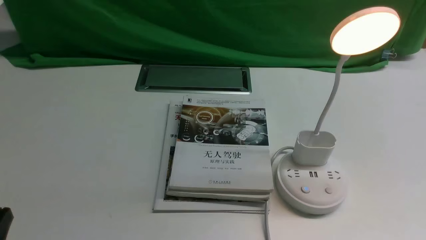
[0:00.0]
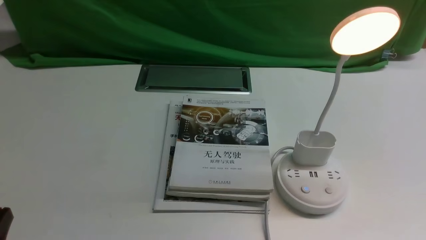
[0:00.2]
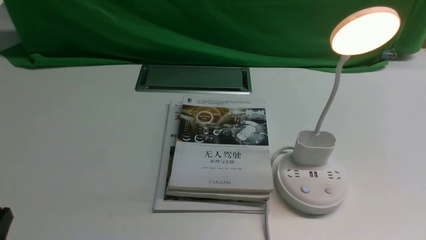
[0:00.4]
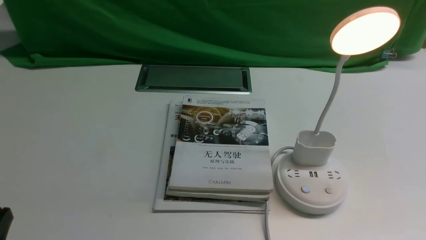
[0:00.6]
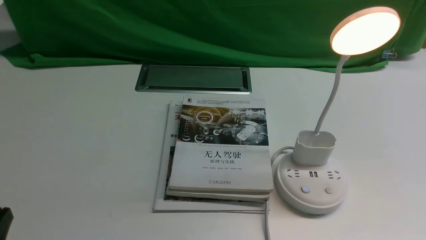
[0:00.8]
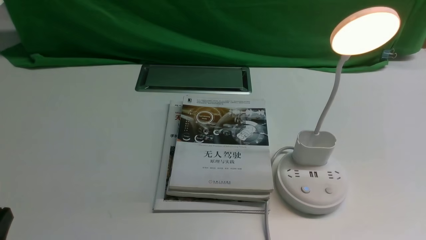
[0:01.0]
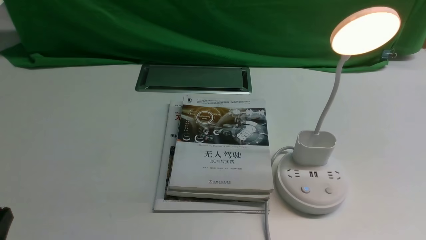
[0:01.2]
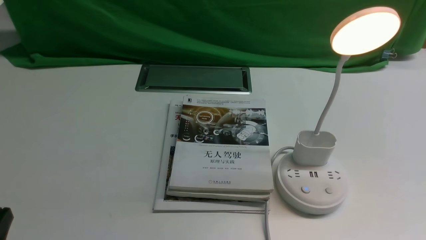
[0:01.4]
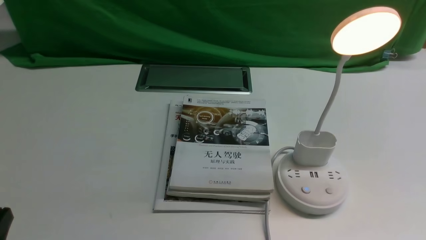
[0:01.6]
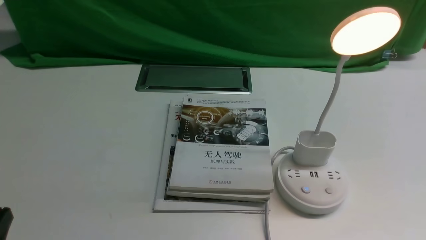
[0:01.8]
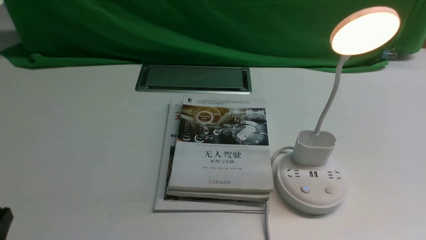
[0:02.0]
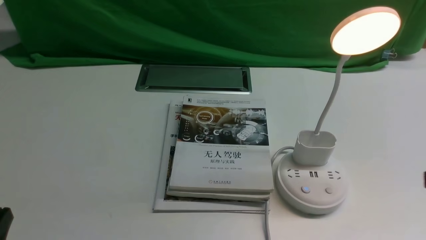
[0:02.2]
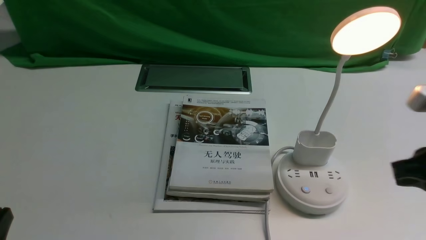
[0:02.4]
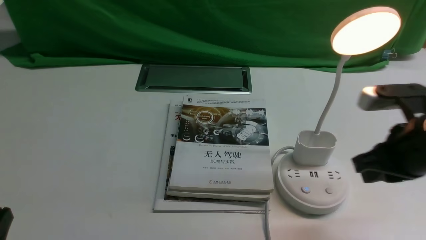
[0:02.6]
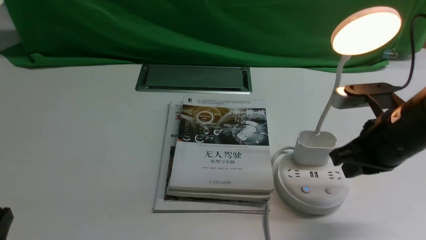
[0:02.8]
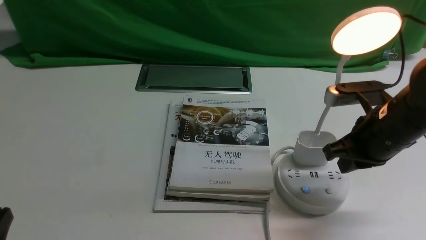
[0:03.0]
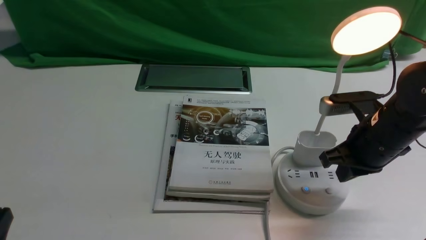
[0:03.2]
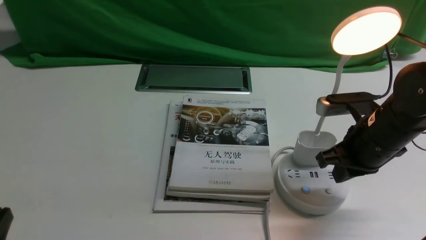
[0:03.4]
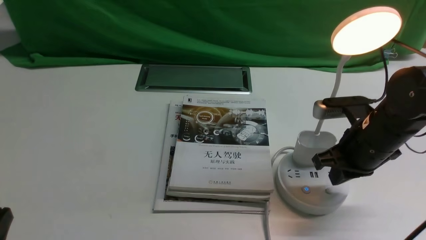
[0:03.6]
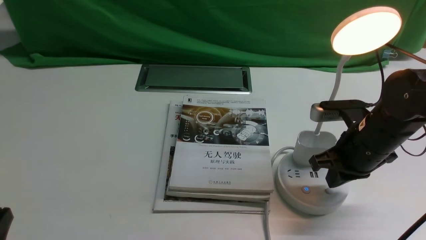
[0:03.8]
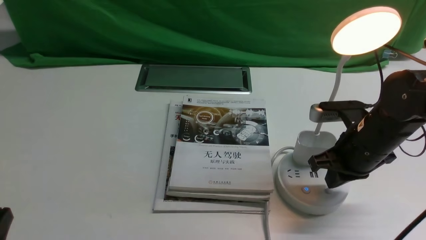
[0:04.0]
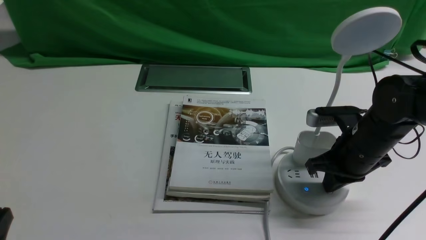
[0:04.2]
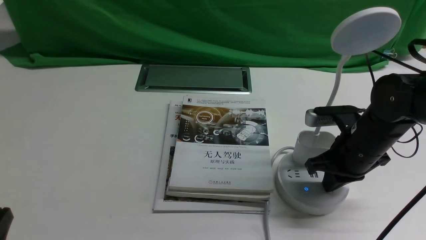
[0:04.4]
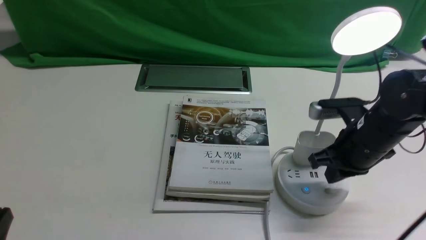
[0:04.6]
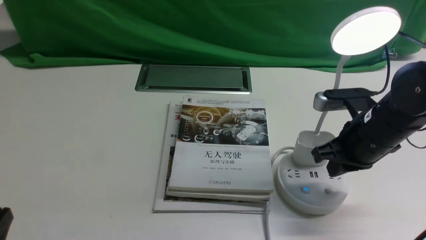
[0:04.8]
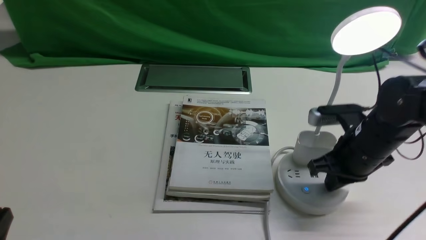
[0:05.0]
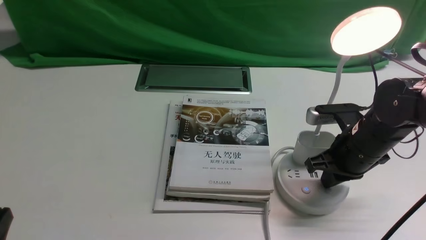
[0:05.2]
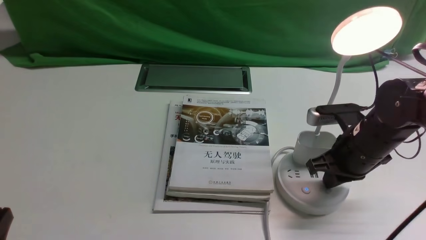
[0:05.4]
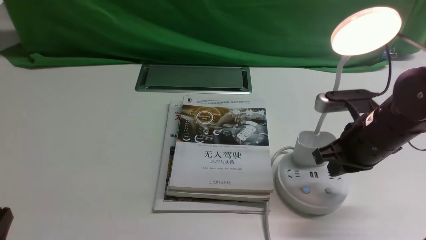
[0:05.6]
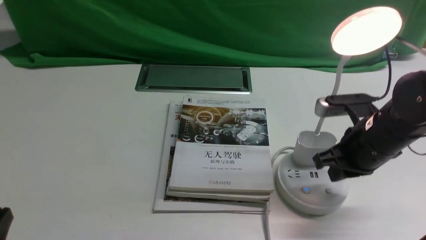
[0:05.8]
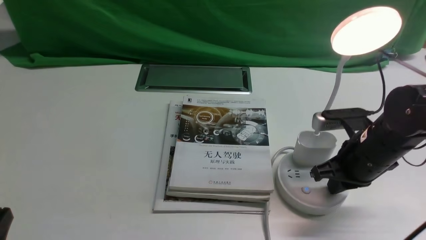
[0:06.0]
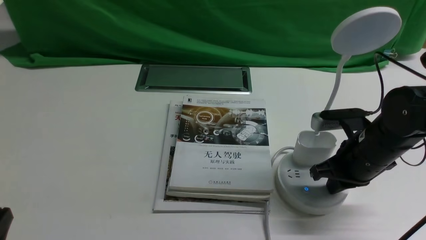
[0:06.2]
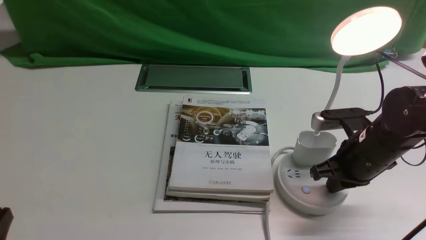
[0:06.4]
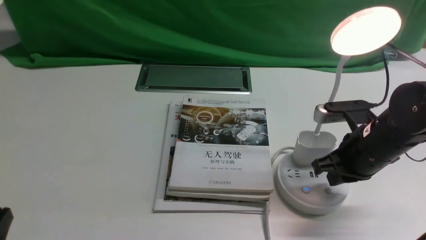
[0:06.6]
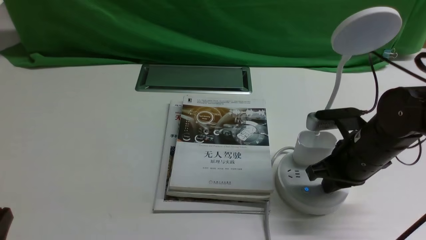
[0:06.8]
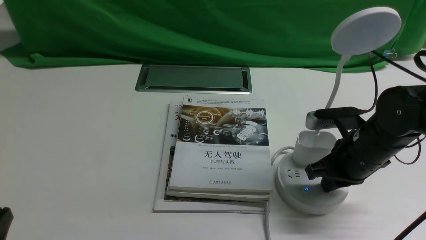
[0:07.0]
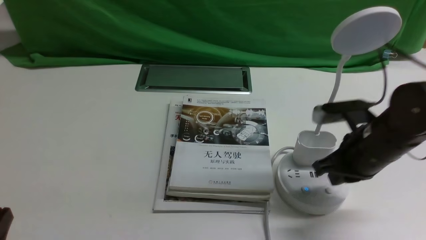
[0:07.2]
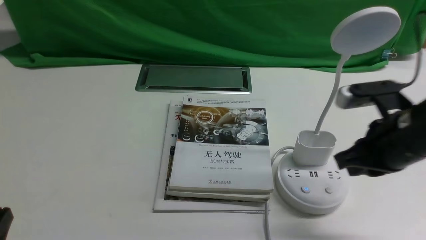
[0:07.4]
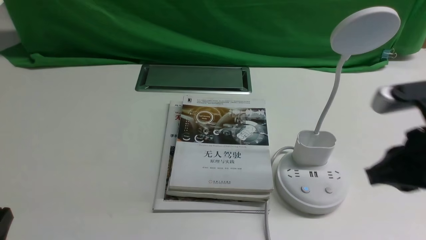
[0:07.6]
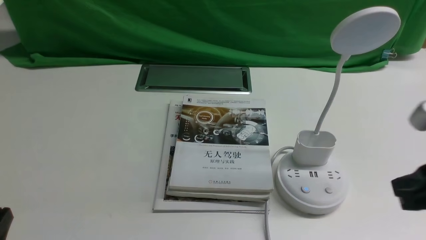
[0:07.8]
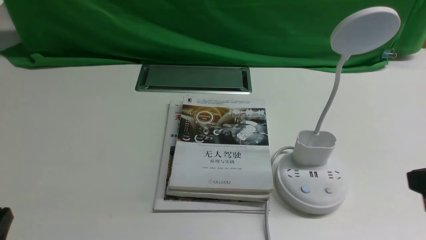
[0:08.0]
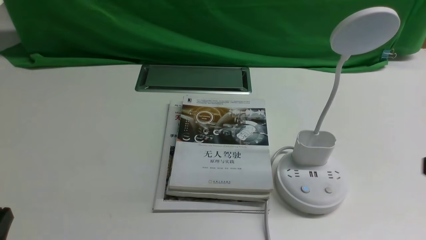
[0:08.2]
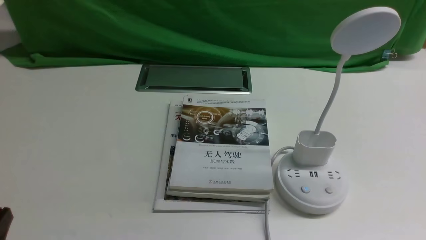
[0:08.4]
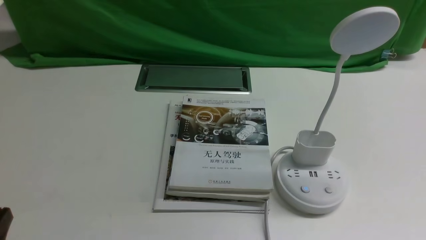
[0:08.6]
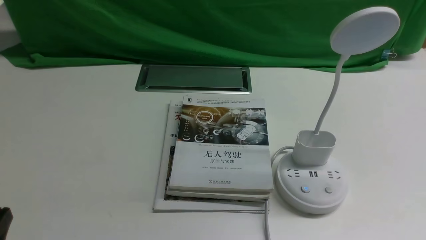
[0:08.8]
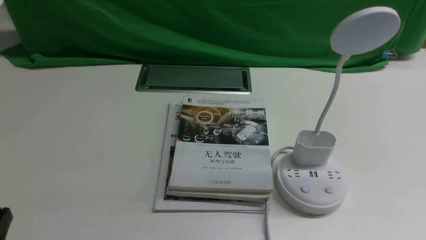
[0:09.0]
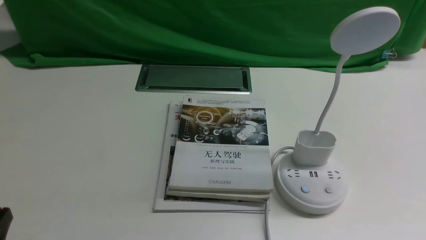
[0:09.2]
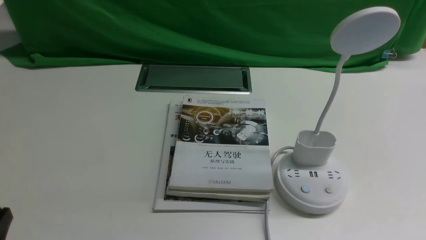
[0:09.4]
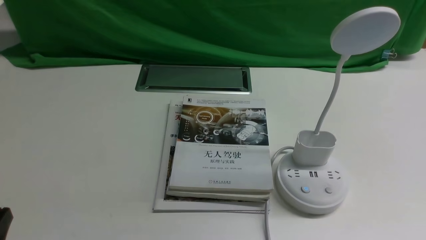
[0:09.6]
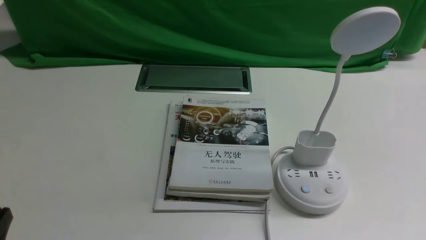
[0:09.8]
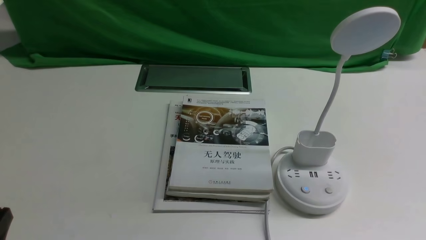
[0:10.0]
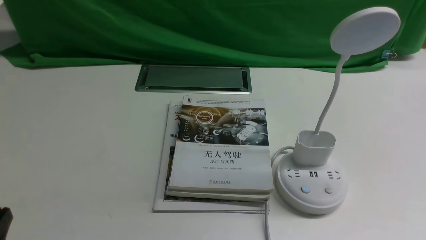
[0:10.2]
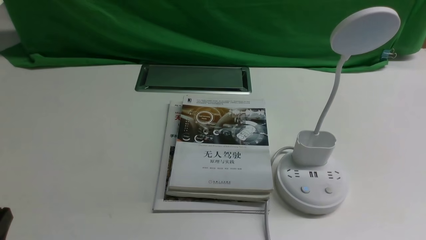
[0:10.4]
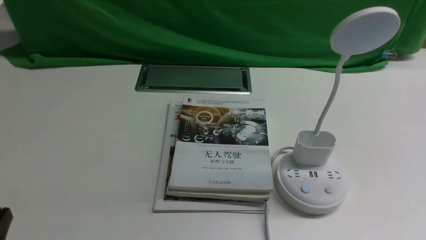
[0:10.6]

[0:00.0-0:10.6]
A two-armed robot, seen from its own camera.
Task of the whole recording: turn off the desk lamp on the white desktop by hand.
Step, 0:00.0 to 0:07.2: use the right arm to press the button switch on the lamp holder.
0:01.6 to 0:03.0: The right gripper is displaced forward and to the left by approximately 25 cm, and closes up.
0:03.0 to 0:04.6: The right gripper changes place by some 5 cm, and opens its fingers.
0:04.6 to 0:06.0: The grippers move only a little.
0:06.0 to 0:07.6: The right gripper goes roughly 10 cm upward and backward.
0:07.6 to 0:09.0: The right gripper moves backward, downward and to the right, some 20 cm.

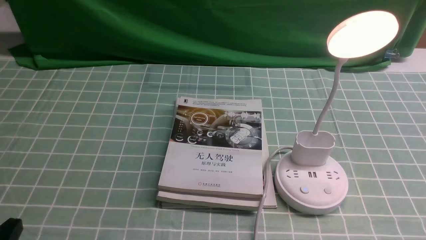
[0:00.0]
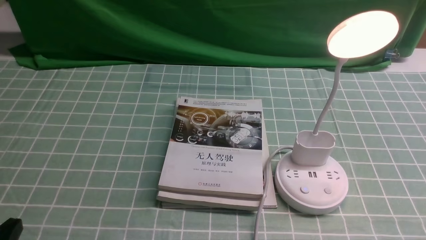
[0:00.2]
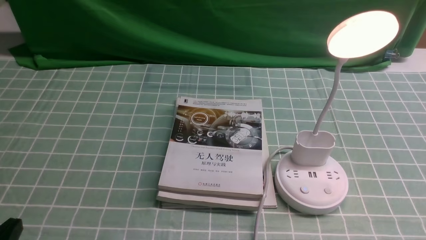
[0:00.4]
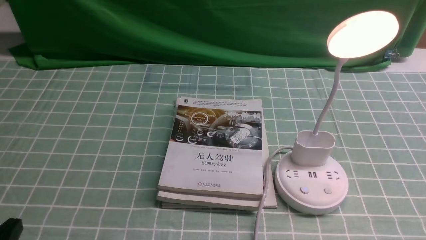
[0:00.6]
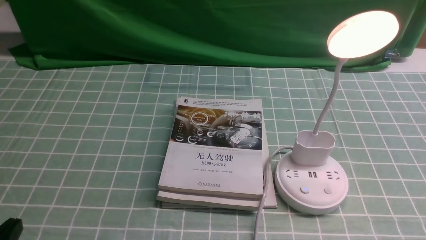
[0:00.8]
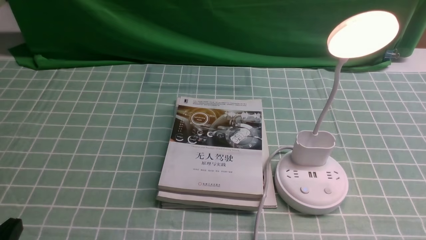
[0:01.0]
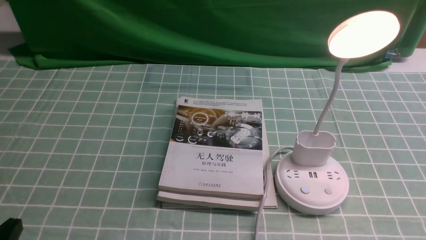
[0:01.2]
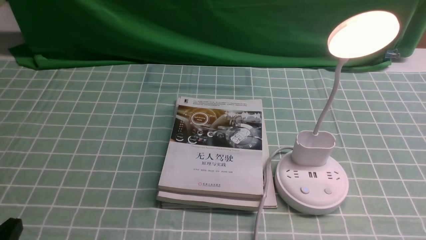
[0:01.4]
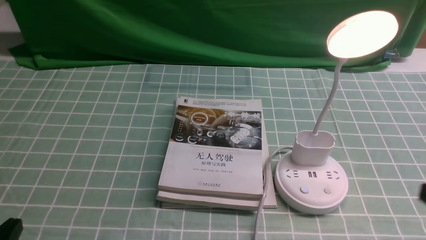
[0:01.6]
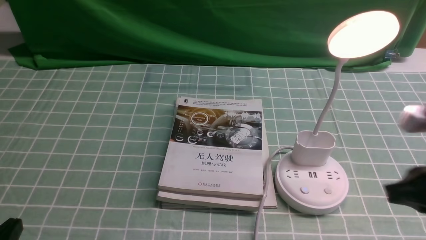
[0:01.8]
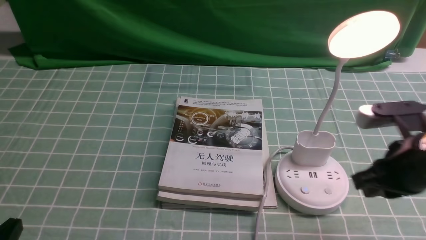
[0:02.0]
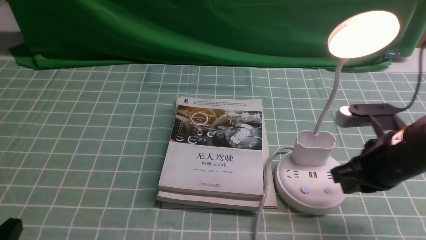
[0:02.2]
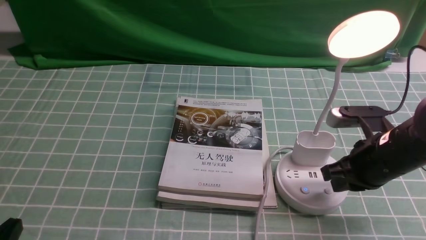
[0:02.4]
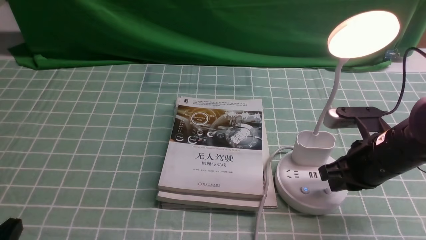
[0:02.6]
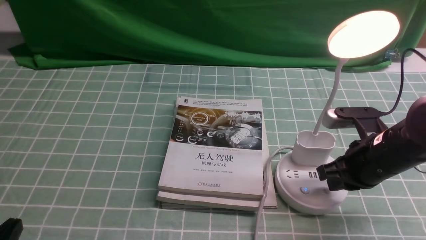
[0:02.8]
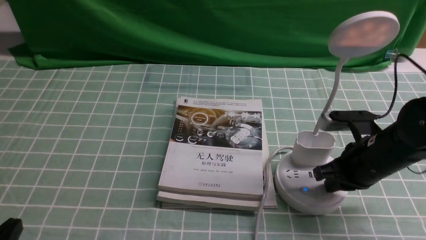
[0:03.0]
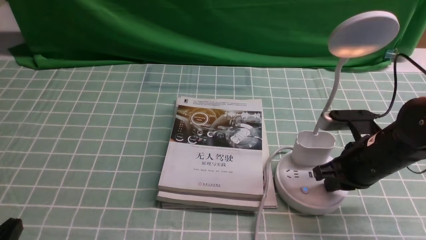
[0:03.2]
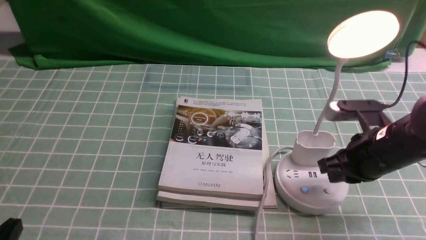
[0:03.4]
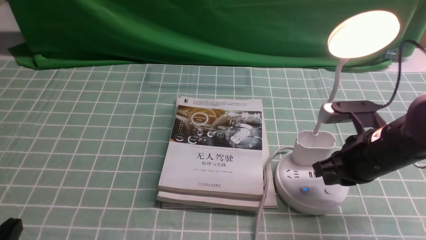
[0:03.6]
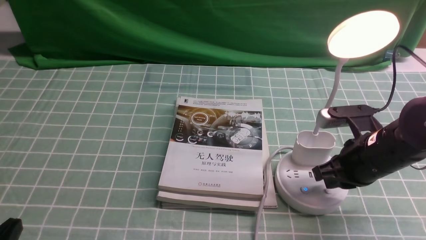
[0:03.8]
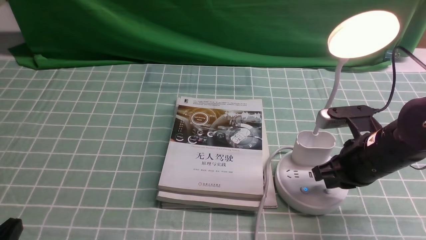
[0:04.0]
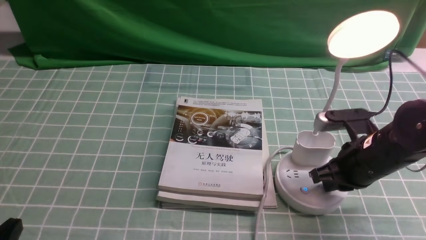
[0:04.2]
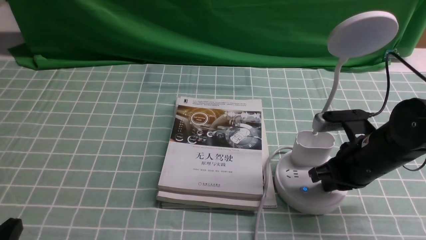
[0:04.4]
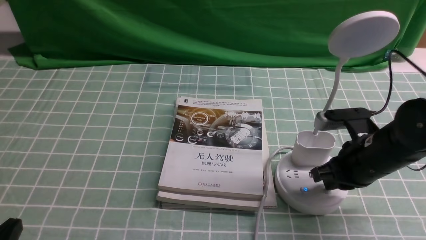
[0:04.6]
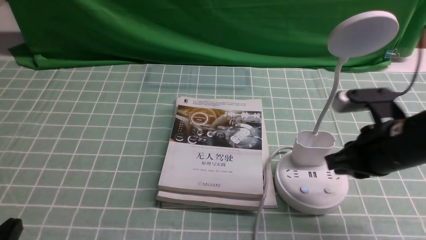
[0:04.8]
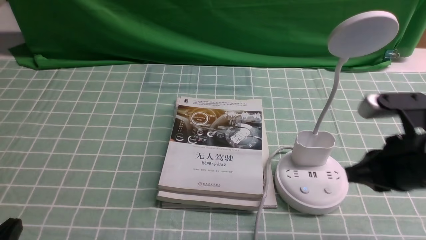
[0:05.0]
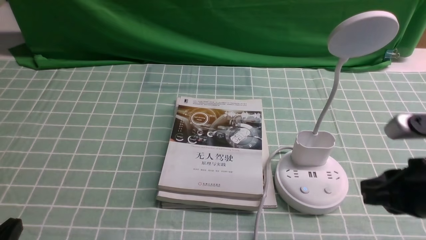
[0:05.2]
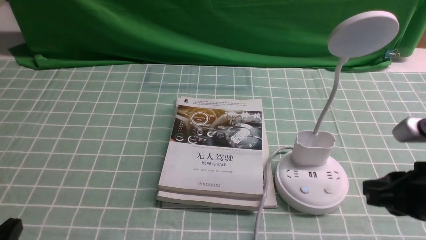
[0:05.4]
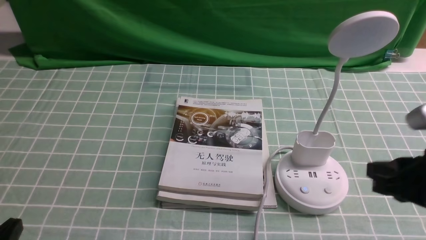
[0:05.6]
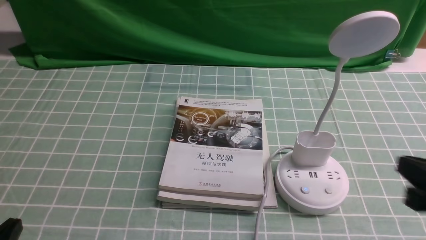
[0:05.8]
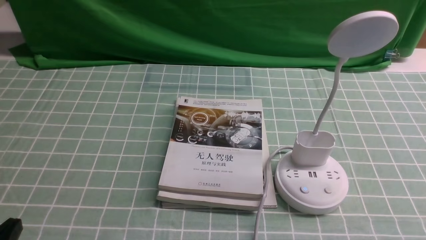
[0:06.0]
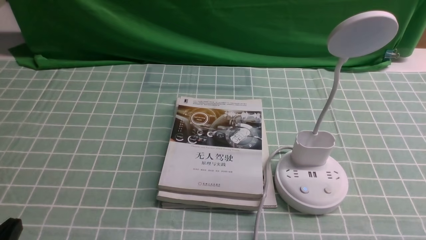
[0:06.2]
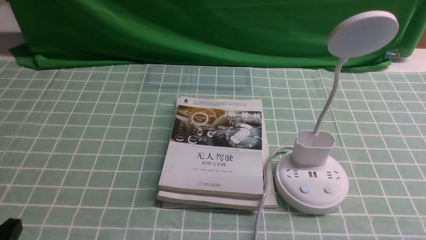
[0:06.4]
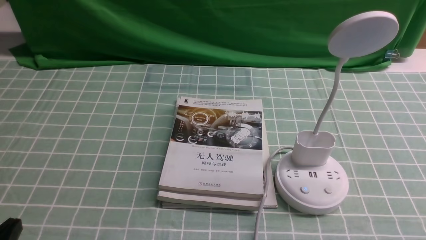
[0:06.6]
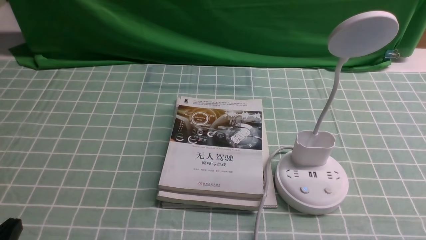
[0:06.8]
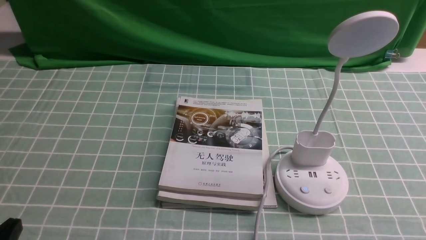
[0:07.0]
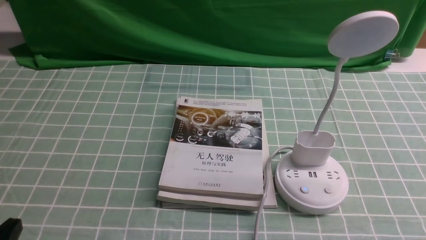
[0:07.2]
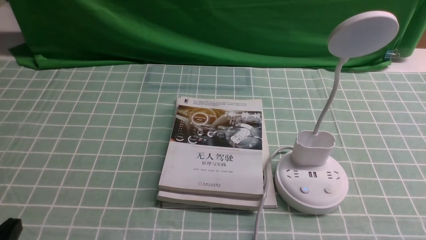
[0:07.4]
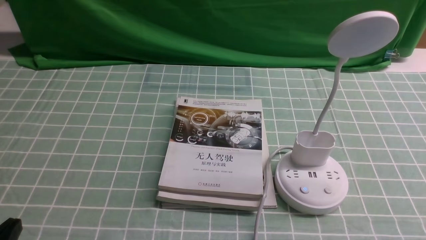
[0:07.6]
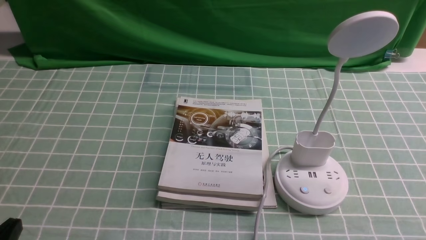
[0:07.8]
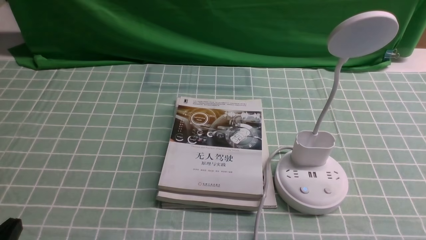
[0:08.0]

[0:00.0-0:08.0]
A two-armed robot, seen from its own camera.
Task of the whole recording: turn off the desk lamp on the blue coffee tablecloth by hand.
Step, 0:00.0 to 0:04.6: use the right arm to press the button switch on the lamp holder.
0:01.6 to 0:03.2: The right gripper goes approximately 20 cm forward and downward.
0:03.2 to 0:04.8: The right gripper ends up approximately 5 cm from where it was.
0:04.8 to 0:06.4: The right gripper goes approximately 20 cm backward and to the right.
